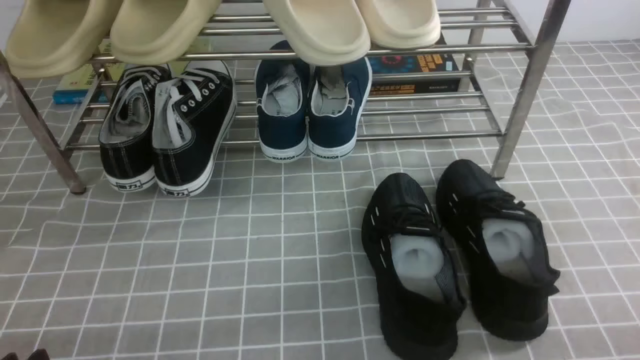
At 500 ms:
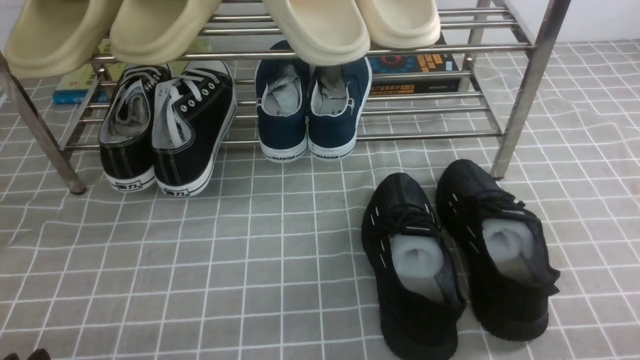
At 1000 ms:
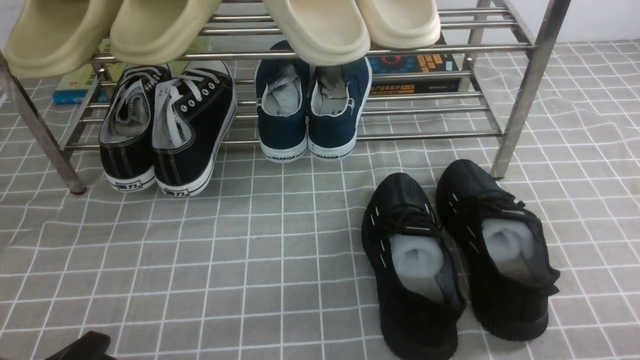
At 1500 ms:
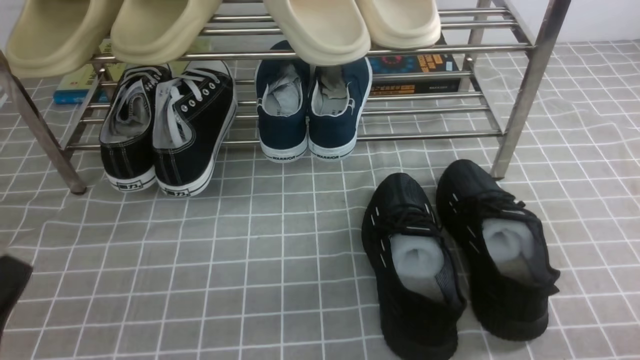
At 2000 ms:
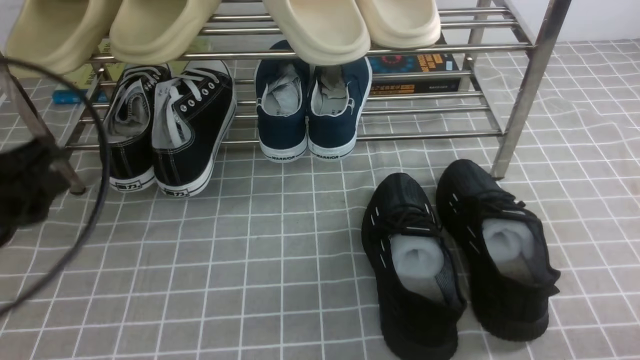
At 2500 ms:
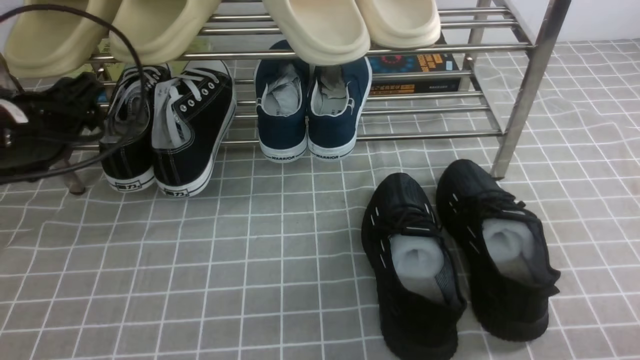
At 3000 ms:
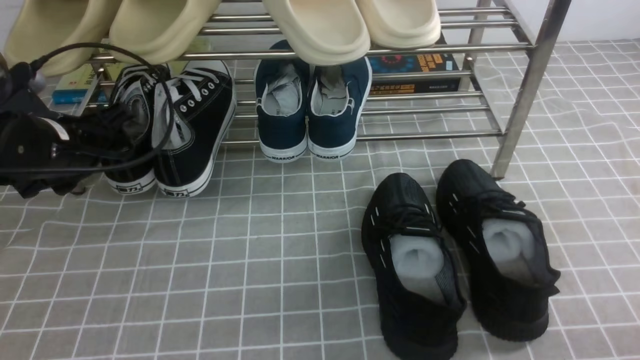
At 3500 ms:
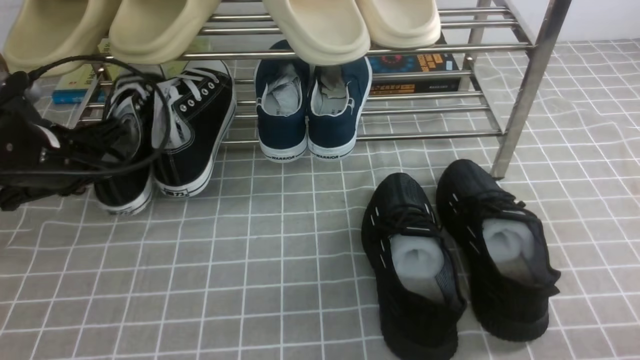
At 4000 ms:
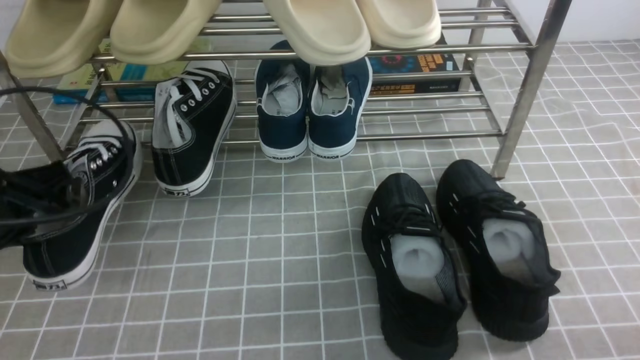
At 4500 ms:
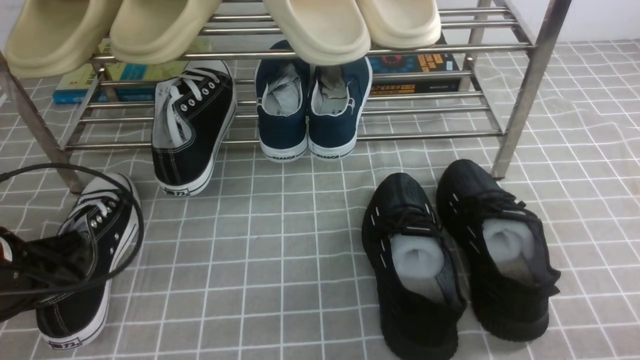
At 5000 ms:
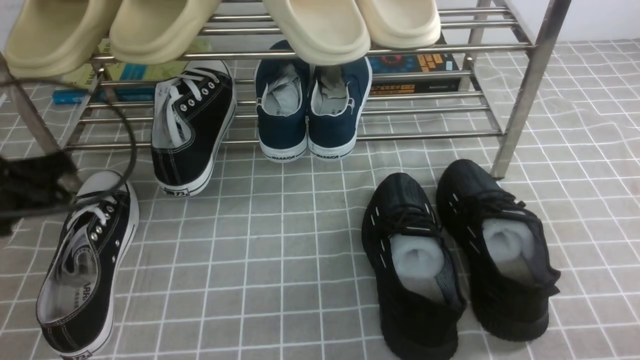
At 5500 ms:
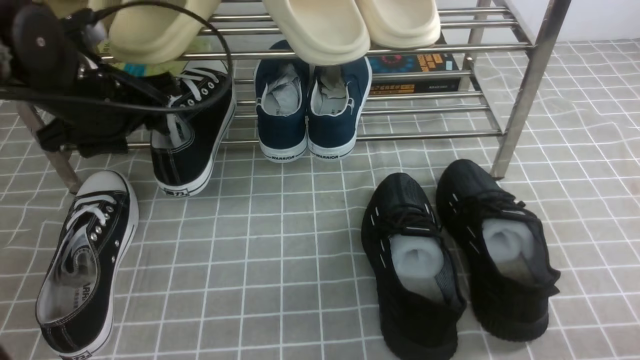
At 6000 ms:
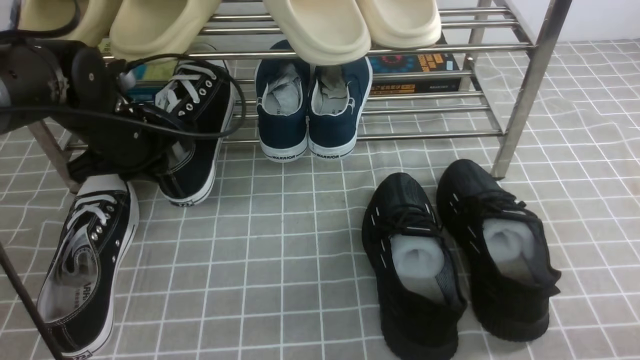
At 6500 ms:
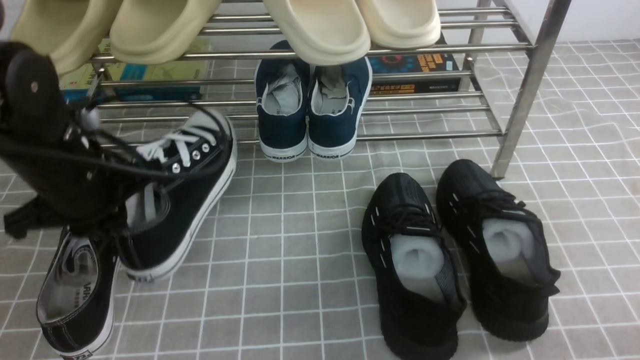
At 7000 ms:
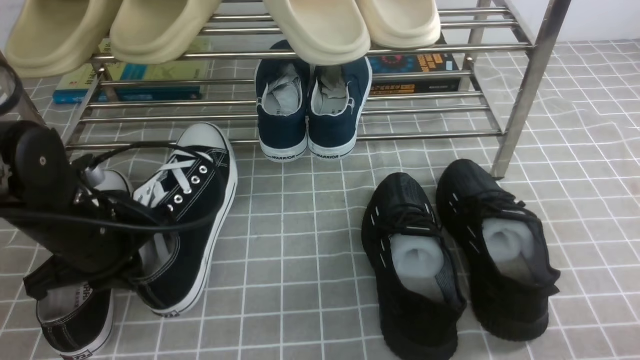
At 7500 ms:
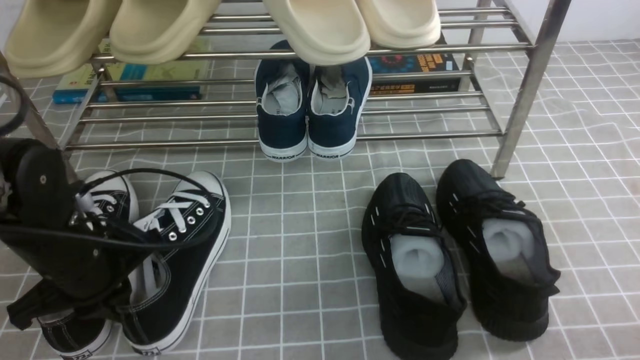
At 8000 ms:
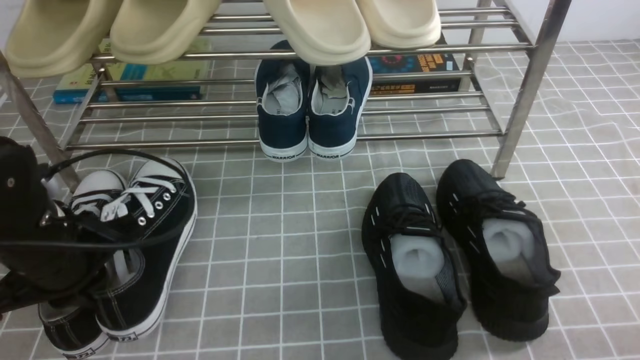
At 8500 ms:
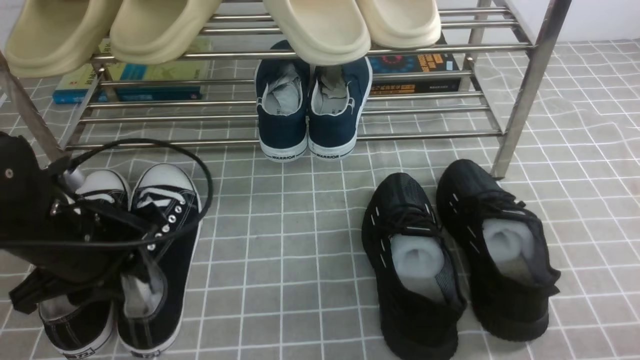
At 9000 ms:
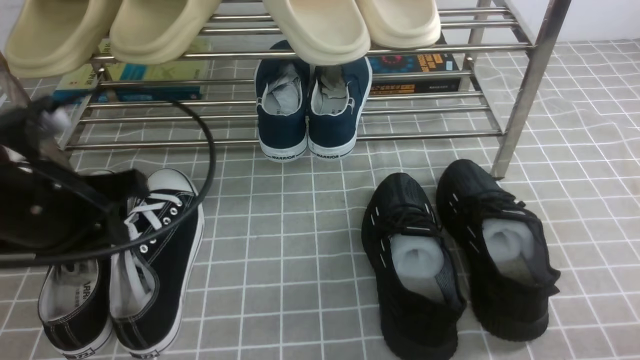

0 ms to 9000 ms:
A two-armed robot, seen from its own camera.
Step, 0 ms to 3500 ms: use the left arm to clamp a shoe on the left side of the shoe rack.
Step, 4000 ms to 4500 ms: Use your left arm to remove the clamped shoe from the shoe rack and put it down.
Step, 5000 ms to 6000 ms: use the left arm to clamp a shoe on the left side of the shoe rack.
Step, 6500 ms to 8500 ms: Use your left arm to remove the clamped shoe from the shoe rack and put it down.
0 ms to 2000 ms: The left gripper moves forward and upward, about 20 cm.
2000 ms to 4500 ms: The left gripper shifts approximately 10 cm downward, goes forward and returns, about 15 cm each way, and closes its fingers.
4500 ms to 7000 ms: The left gripper goes about 5 cm to the right, travels forward and back again, some 15 cm each way, and opens, then closes again.
7000 ms to 9000 ms: The left gripper is displaced upward and backward by some 10 cm.

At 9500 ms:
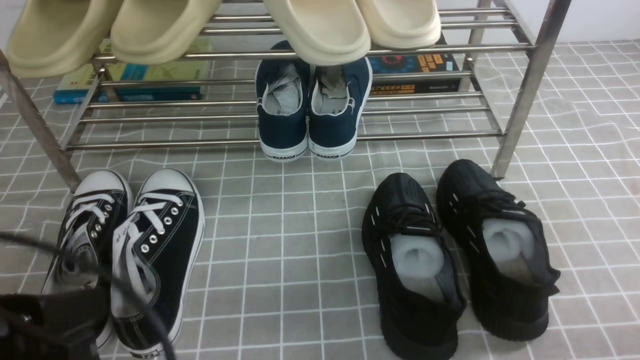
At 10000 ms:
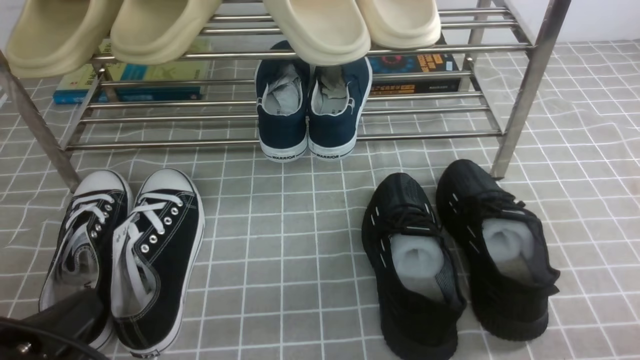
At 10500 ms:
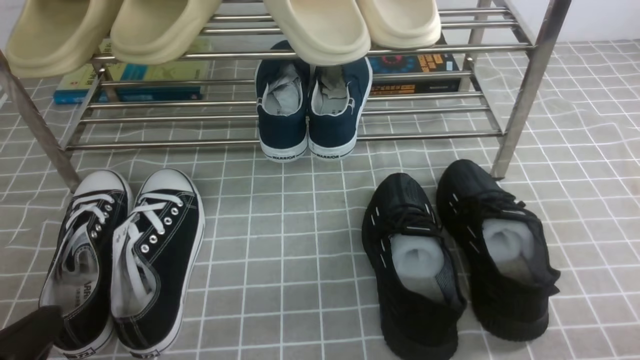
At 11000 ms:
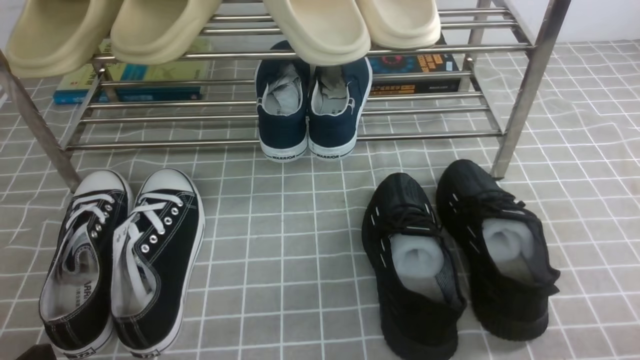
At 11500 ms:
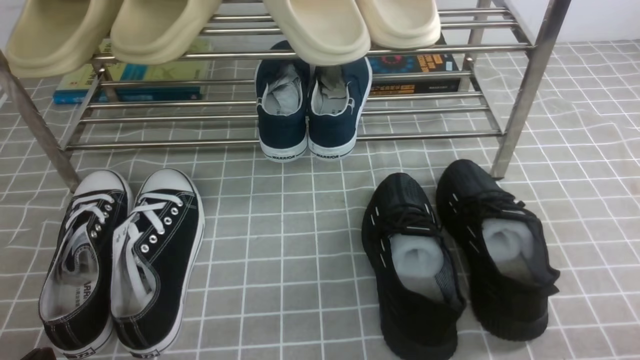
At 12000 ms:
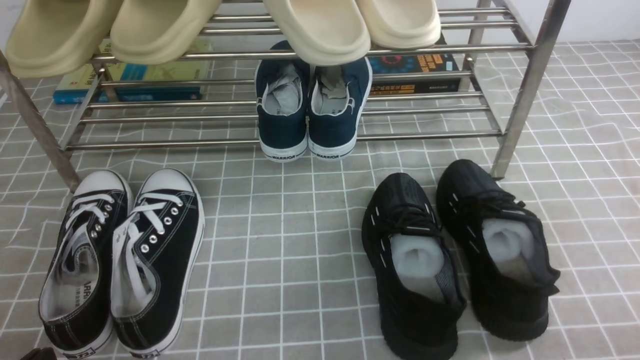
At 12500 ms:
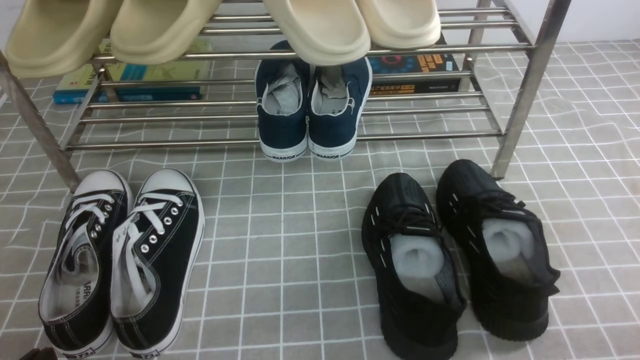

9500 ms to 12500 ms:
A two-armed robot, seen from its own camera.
9500 ms to 11000 ms: The left gripper goes approximately 10 cm downward.
11000 ms to 12500 ms: Both grippers stay about where they are.

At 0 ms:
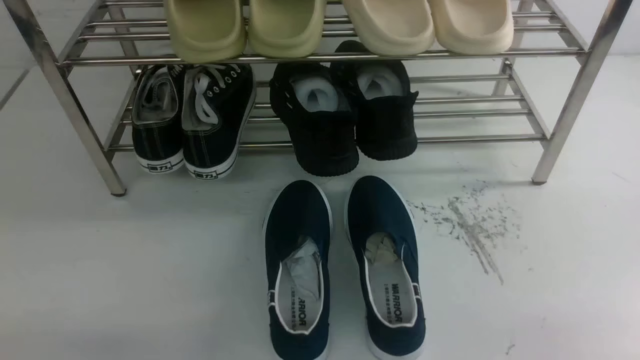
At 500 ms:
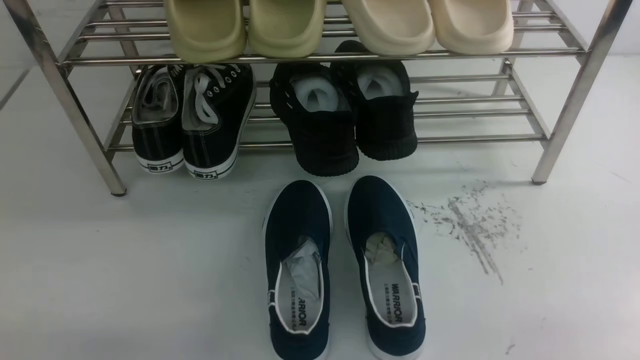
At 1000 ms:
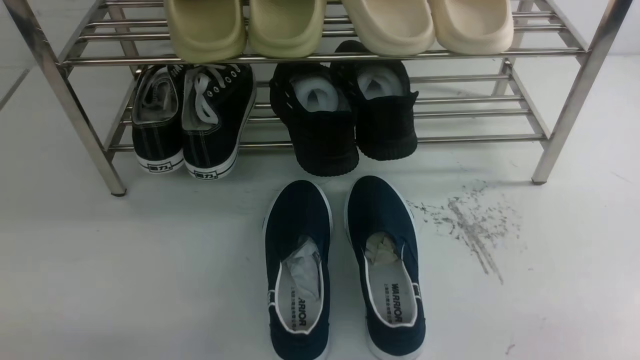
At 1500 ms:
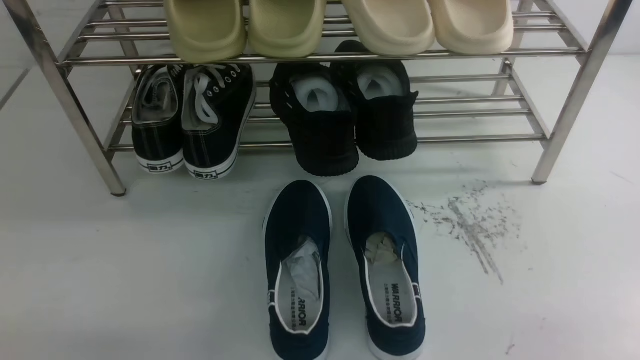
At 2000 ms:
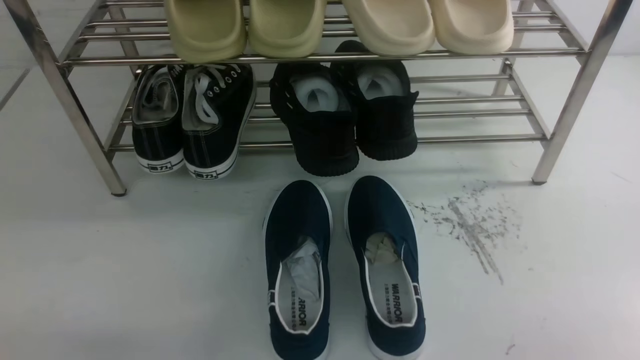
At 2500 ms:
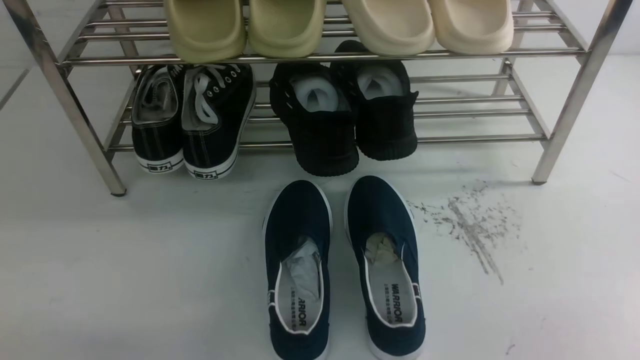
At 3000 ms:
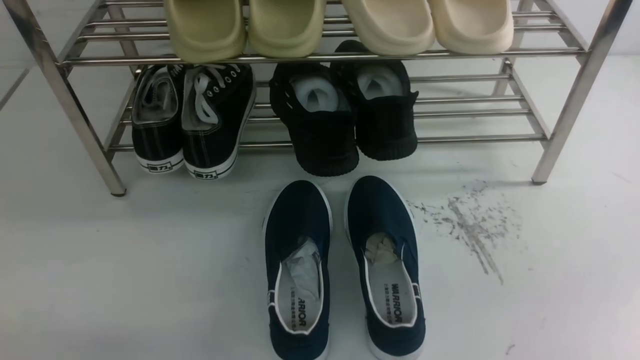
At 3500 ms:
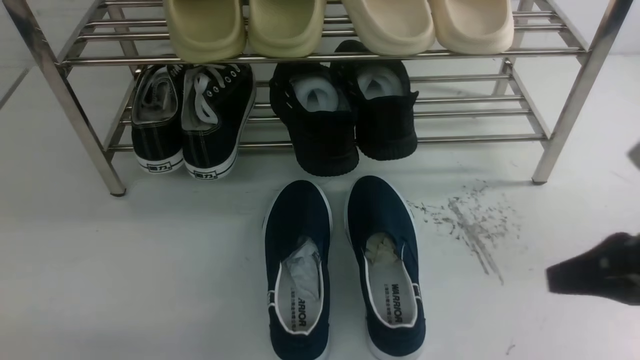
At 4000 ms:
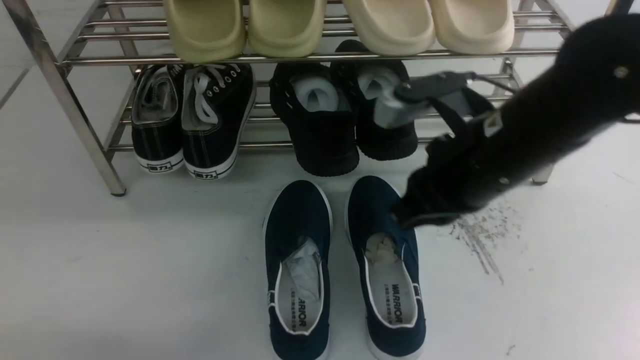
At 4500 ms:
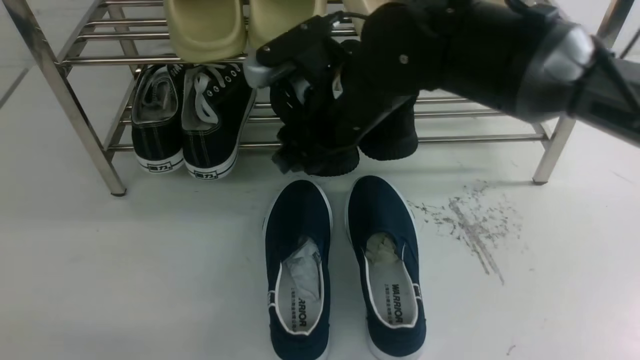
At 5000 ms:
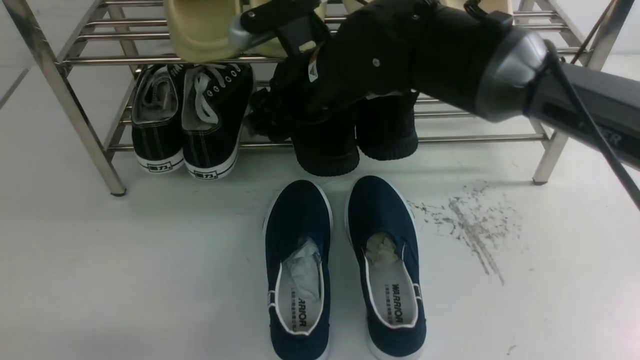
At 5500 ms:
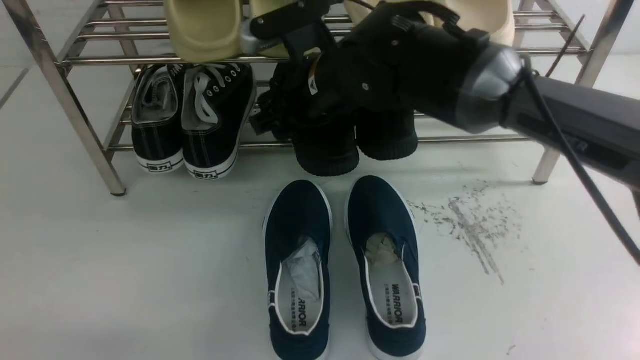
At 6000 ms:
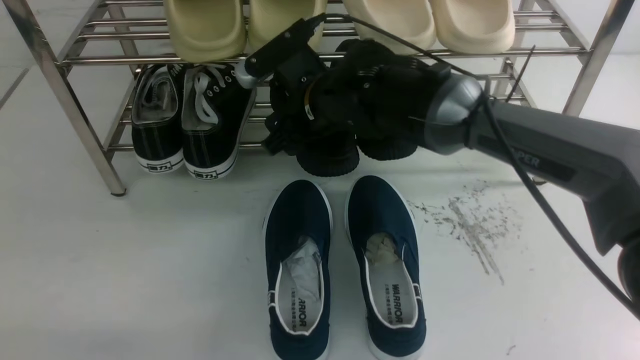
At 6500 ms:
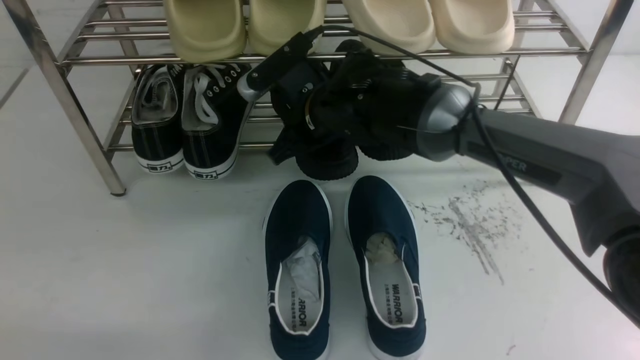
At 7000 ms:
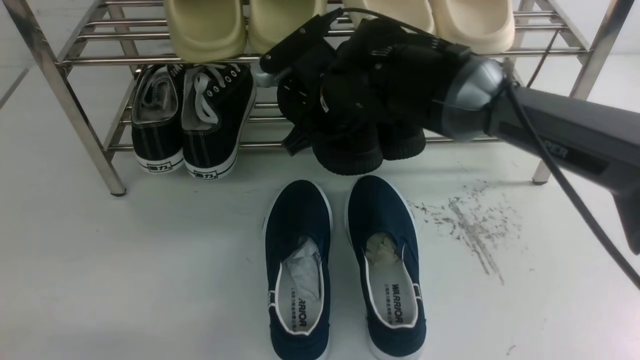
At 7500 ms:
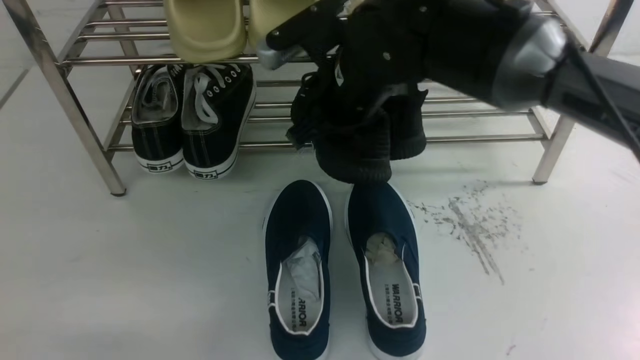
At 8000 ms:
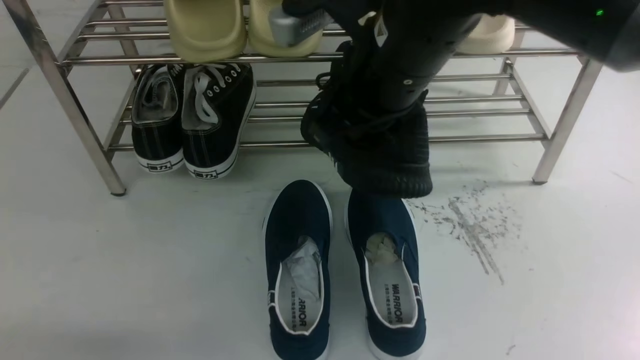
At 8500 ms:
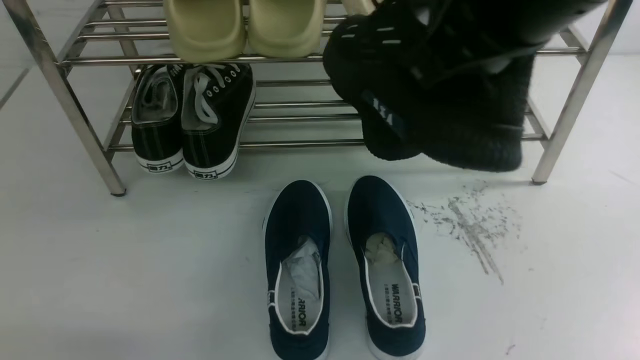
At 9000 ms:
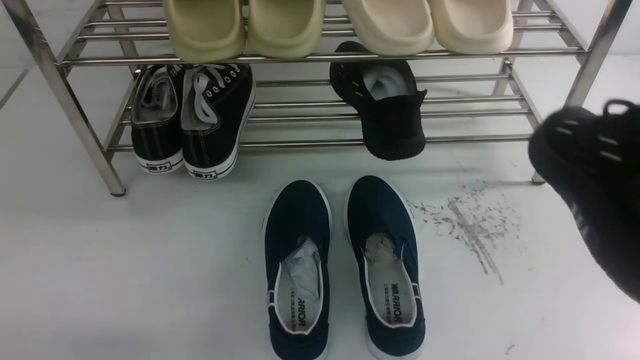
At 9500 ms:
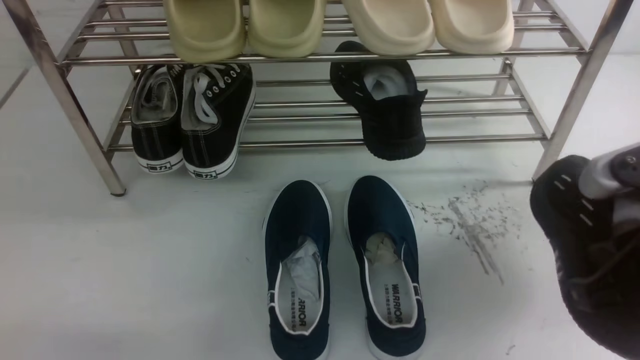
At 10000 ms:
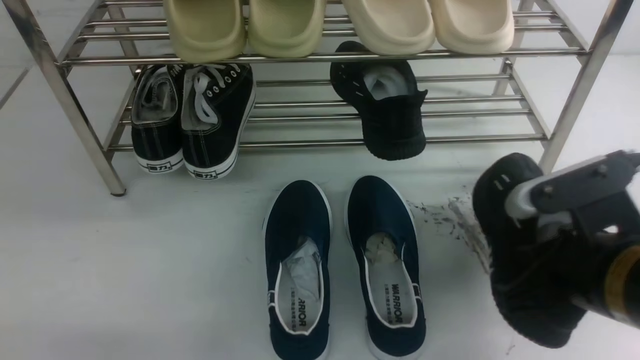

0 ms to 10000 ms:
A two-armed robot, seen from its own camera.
Step, 0 ms to 7000 ms: use the right arm to clamp a shoe in the middle of the shoe rack.
2000 ms to 4000 ms: The right gripper heads forward, to the left and upward, covering some 30 cm.
4000 ms to 6000 ms: The right gripper heads forward, to the left and downward, covering approximately 20 cm, and opens its fingers.
6000 ms to 8000 ms: The right gripper heads upward, backward and to the right, covering some 20 cm, and closes its fingers.
8000 ms to 10000 ms: The right gripper moves downward, to the right and backward, some 25 cm.
